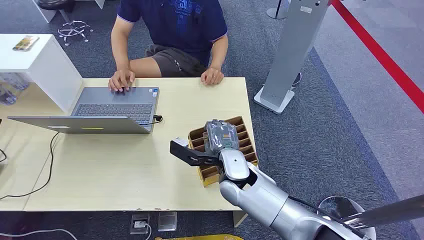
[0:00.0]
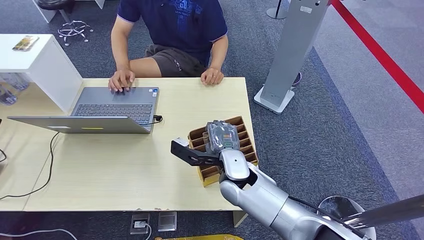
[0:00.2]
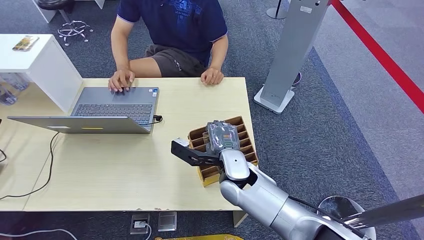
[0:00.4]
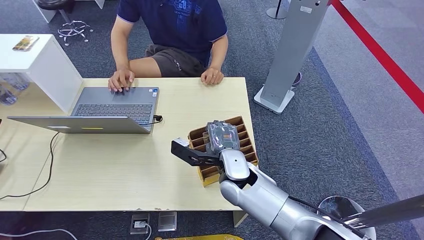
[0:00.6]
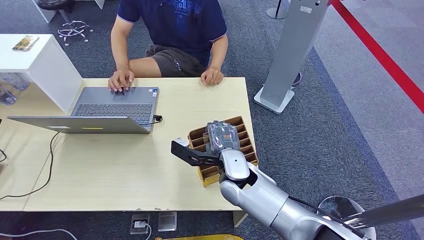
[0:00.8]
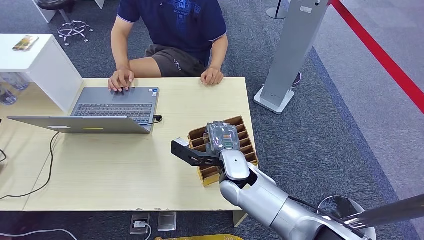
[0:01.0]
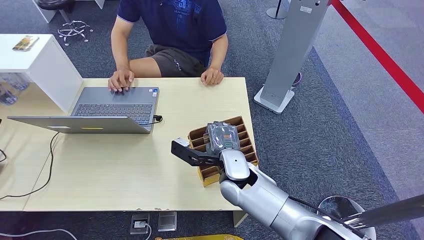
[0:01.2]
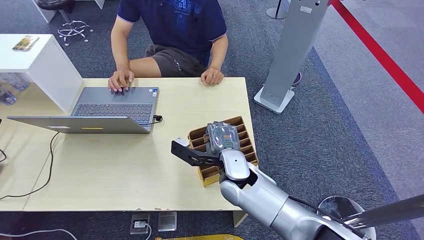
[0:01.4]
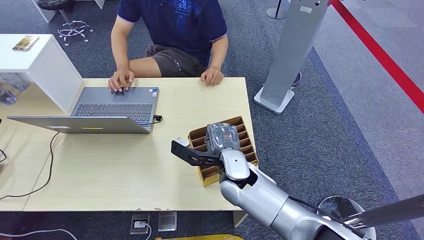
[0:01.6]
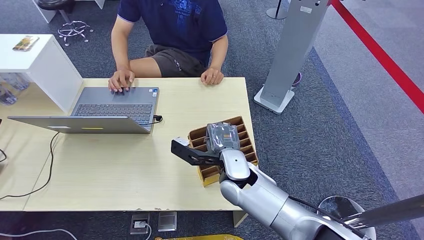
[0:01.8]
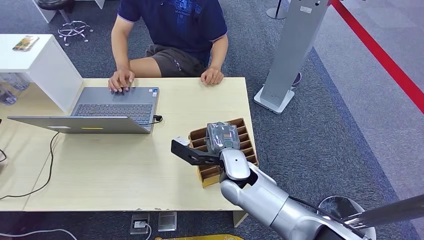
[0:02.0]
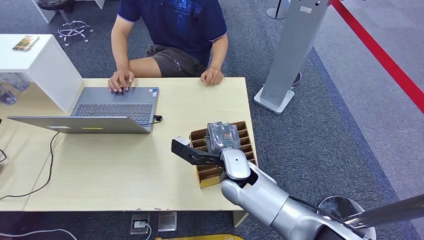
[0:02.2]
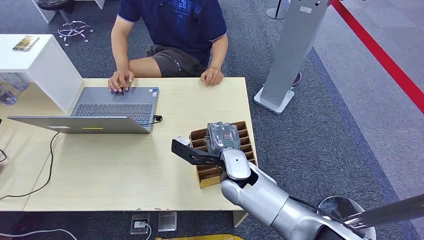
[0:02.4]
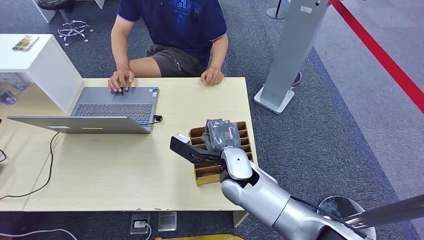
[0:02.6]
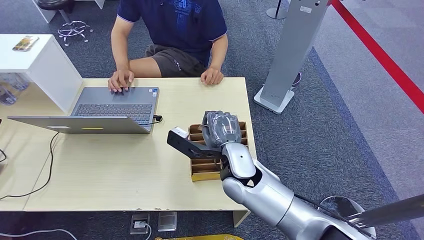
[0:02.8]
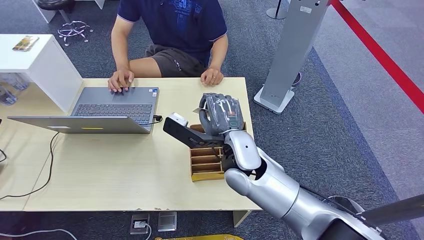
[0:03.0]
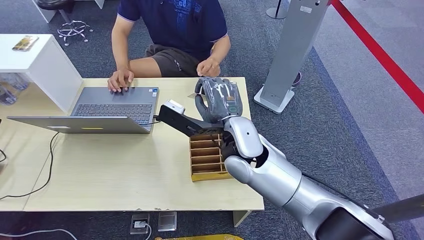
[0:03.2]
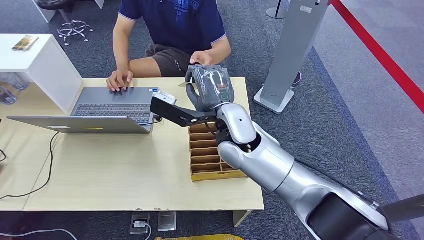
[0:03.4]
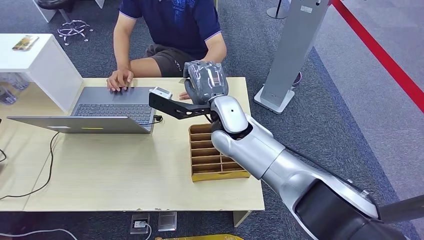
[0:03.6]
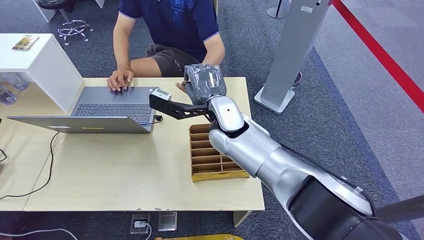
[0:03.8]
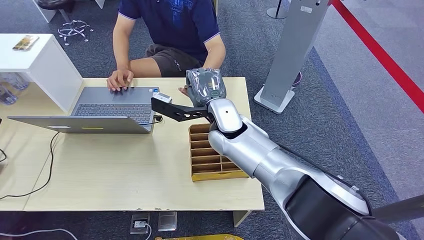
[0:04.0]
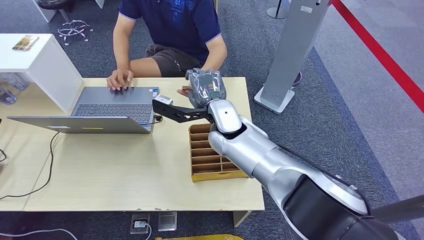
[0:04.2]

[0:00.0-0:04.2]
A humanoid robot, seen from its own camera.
Step, 0:00.0 to 0:02.8: Pick up the key card from the card box.
Step, 0:03.2 to 0:04.2: Hand the key card to the target.
0:01.4 to 0:02.8: The hands make only small movements.
0:02.8 to 0:04.2: The right hand heads forward and upward, covering about 10 cm.
